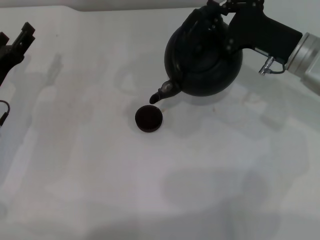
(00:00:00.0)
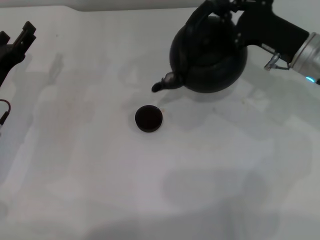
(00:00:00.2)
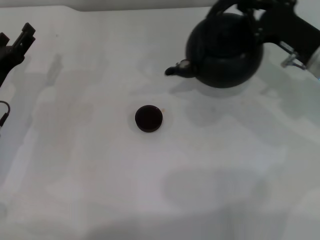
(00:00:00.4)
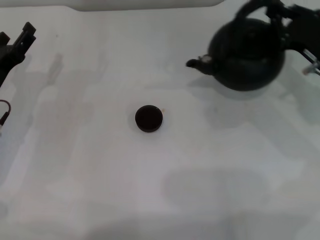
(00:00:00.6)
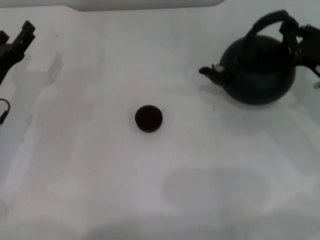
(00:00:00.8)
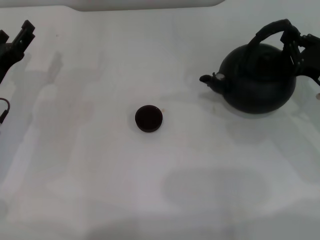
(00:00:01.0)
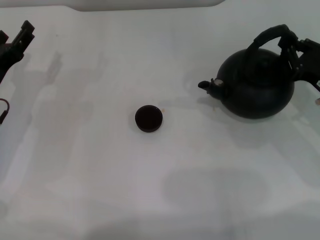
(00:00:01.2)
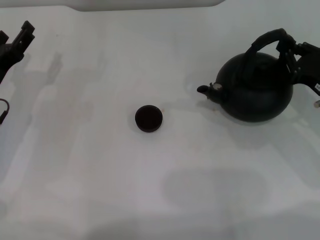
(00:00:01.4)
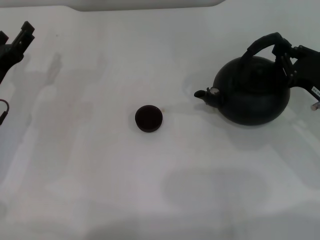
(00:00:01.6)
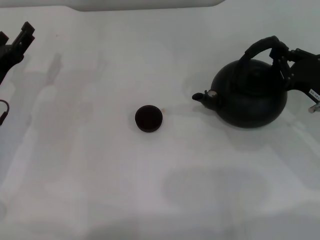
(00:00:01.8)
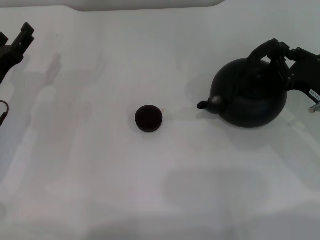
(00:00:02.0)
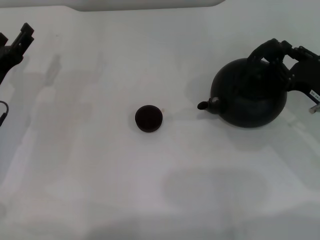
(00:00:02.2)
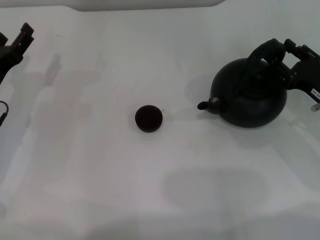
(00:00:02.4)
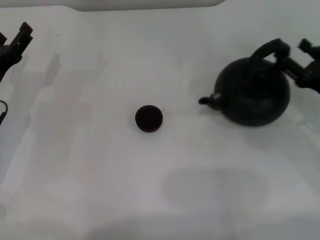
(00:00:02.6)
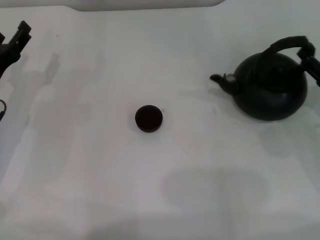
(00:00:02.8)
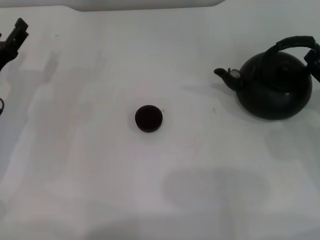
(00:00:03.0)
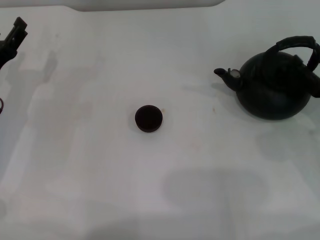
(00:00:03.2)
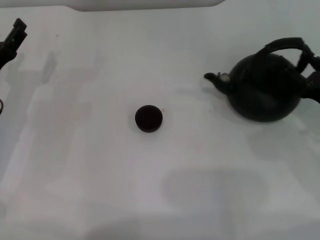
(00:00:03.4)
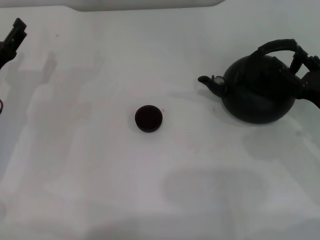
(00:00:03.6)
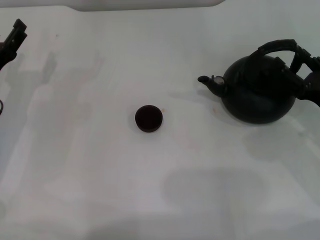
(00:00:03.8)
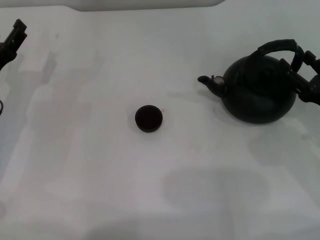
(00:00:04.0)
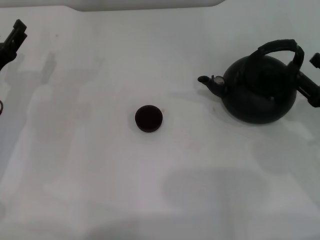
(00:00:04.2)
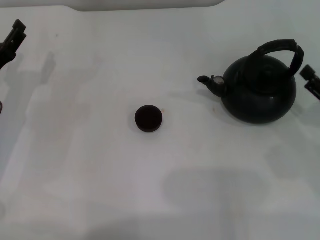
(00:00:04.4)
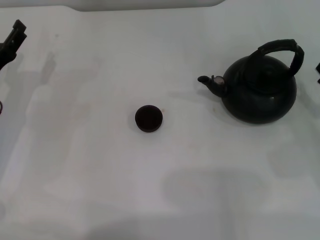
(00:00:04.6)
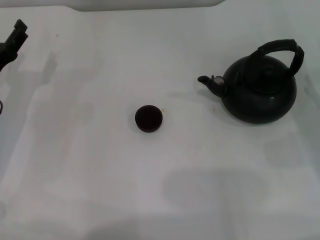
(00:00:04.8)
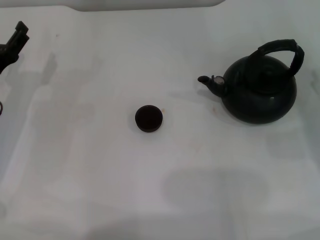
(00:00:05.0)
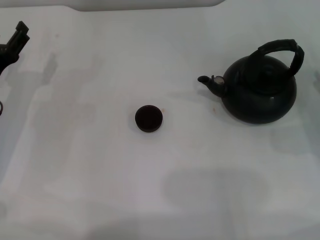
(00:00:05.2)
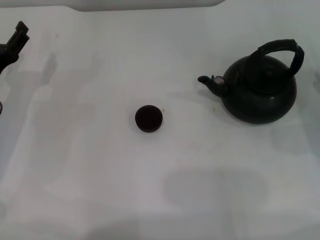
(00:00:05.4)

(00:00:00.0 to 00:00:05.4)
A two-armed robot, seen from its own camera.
Task of the whole recording: Grasp the handle of the teapot with one hand and pour tea into the teacup.
Step, 00:00:00.0 - 00:00:04.2: Put down the teapot with the right gripper.
00:00:00.0 - 00:00:01.4: The right gripper goes about 10 cm to the right, backward and downward.
00:00:01.4 - 00:00:02.8: The right gripper opens up.
00:00:02.8 - 00:00:04.0: There are only small adjustments of the grippers.
00:00:04.0 - 00:00:05.4: The right gripper ends up some 5 cm from where it was.
